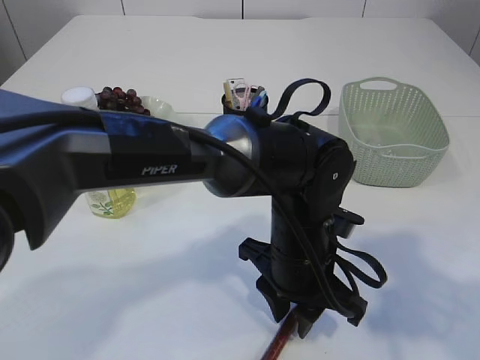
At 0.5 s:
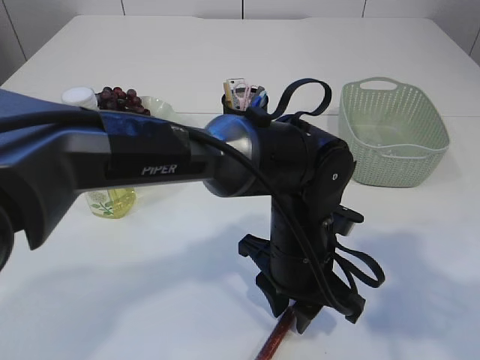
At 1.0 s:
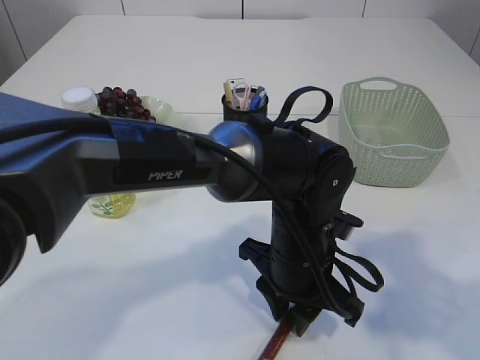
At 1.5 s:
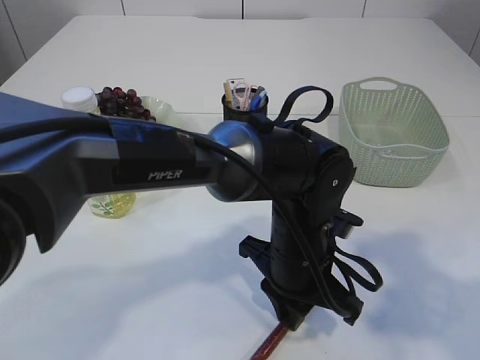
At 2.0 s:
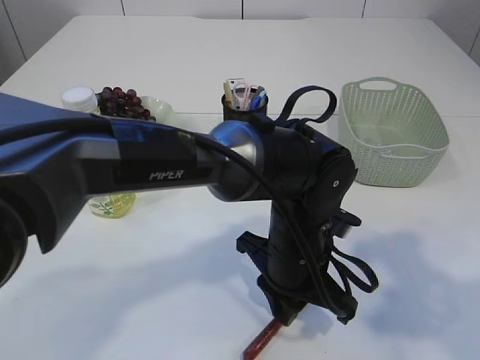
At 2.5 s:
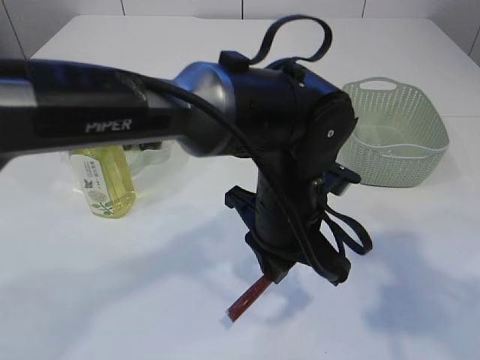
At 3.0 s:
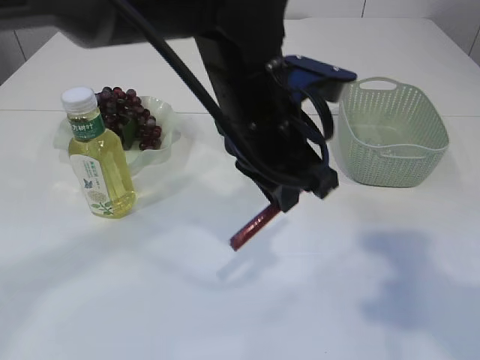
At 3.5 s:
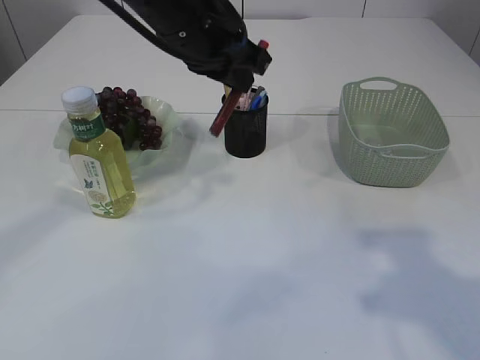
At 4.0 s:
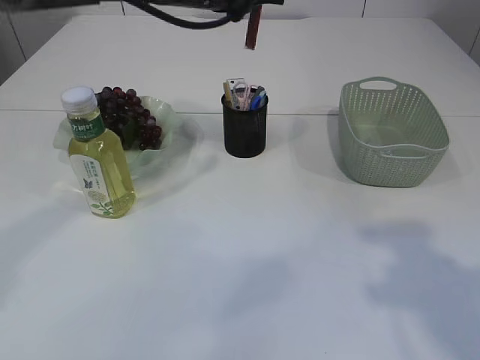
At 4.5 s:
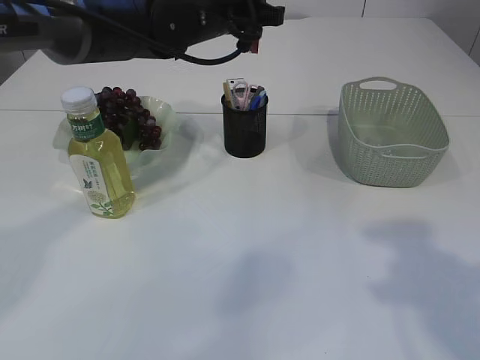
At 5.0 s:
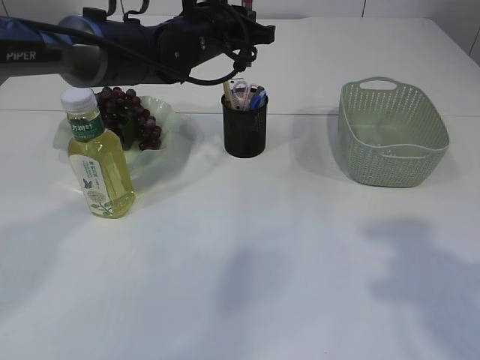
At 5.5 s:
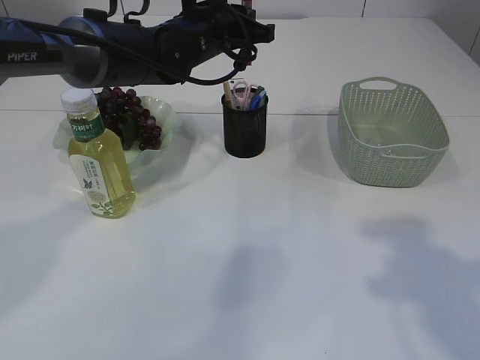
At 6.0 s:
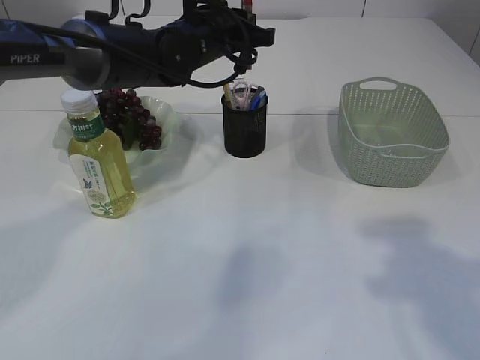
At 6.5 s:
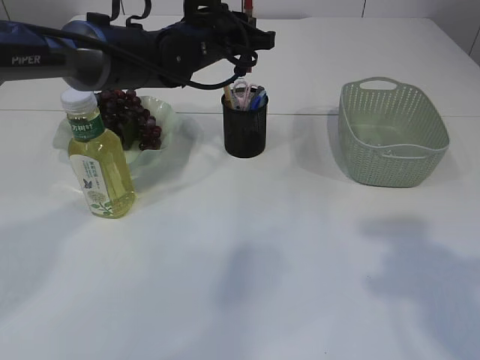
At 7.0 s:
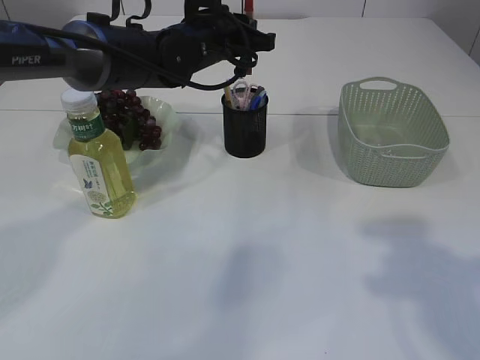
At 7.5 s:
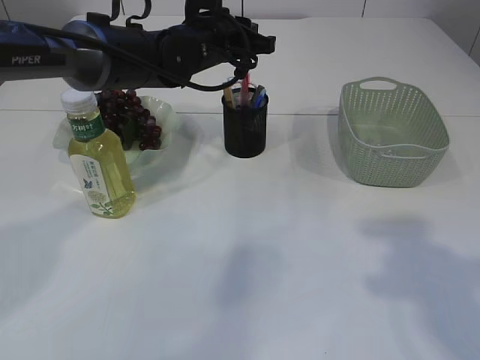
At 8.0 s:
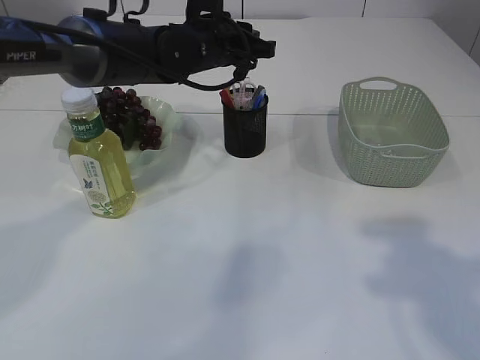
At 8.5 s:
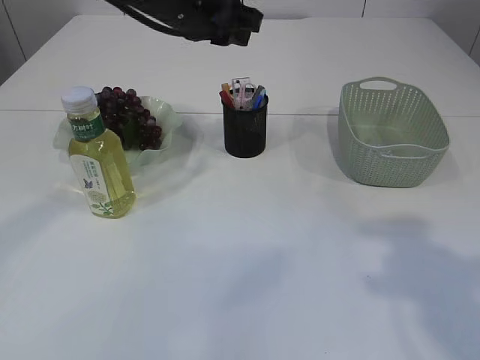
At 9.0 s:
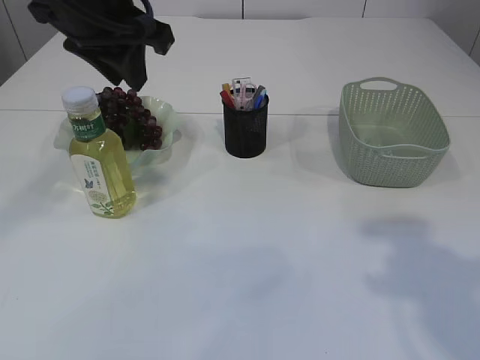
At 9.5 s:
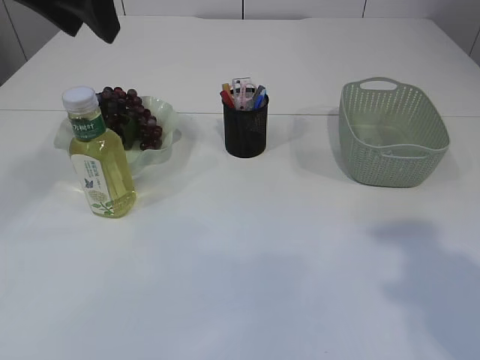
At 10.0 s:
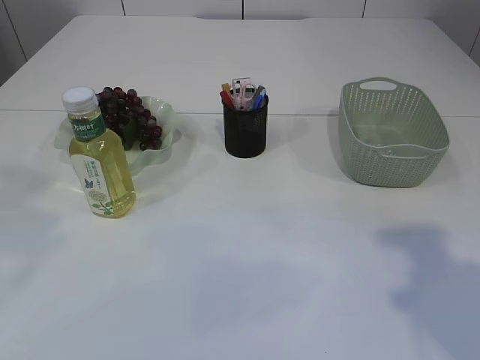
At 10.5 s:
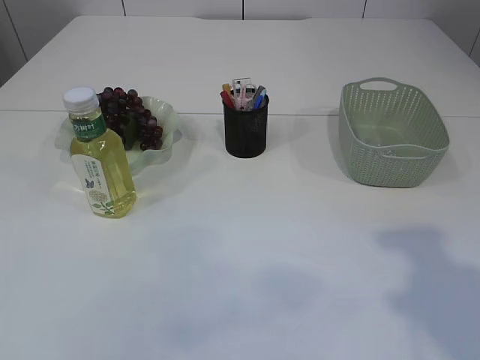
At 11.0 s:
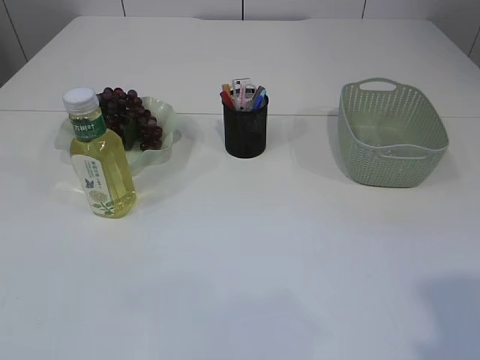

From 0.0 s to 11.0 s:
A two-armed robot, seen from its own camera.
Step, from 0.0 s to 2.5 s: Pick up the pen with left arm.
Step, from 3.0 s to 7.5 s: Place the pen into the pen holder.
From 0.0 s to 2.0 s: The left gripper closes its fingers.
From 2.0 s to 3.5 s: The left gripper heads upward, to the left and forward, covering some 25 cm.
From 3.5 s to 5.5 s: The left gripper is displaced forward and downward by some 10 cm.
From 5.5 s to 7.5 s: Both grippers stay about where they are.
From 7.5 s to 9.0 s: The left gripper heads backward, upward and to the left, covering some 20 cm.
From 9.0 s to 11.0 s: The left gripper moves backward and to the left, about 40 cm.
